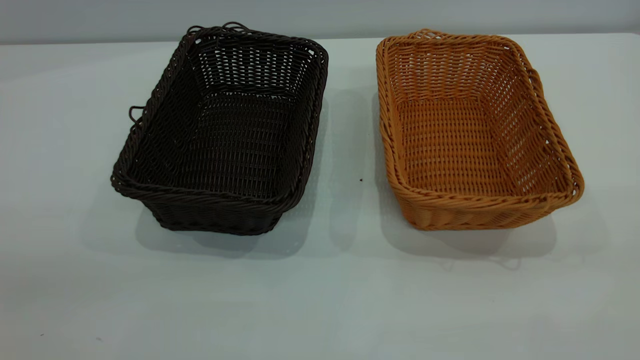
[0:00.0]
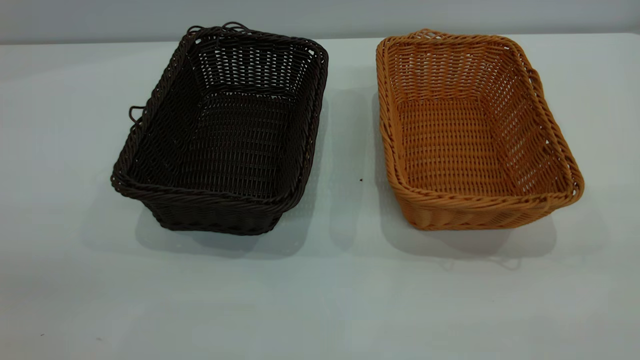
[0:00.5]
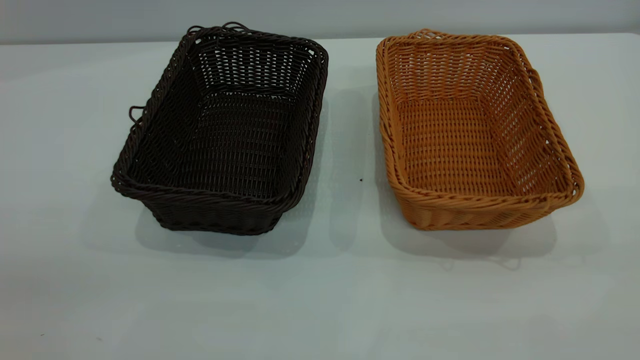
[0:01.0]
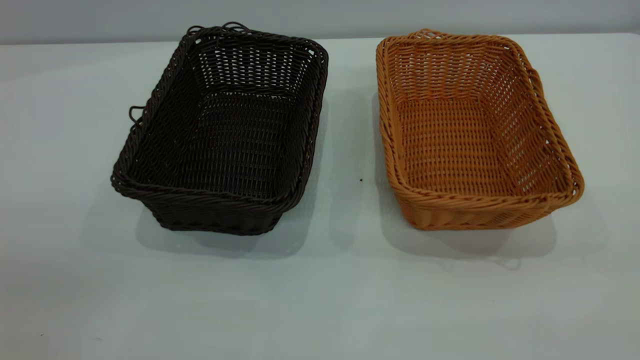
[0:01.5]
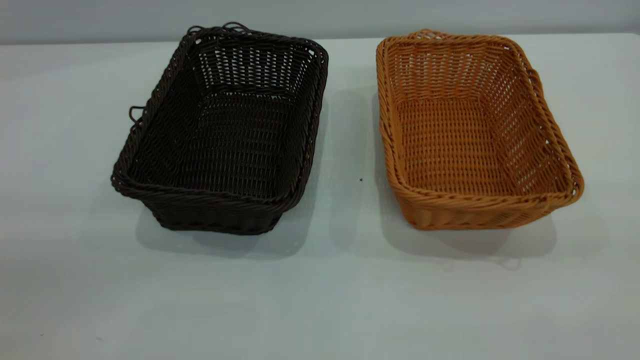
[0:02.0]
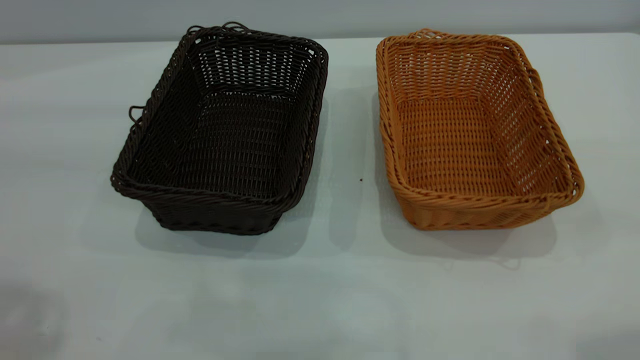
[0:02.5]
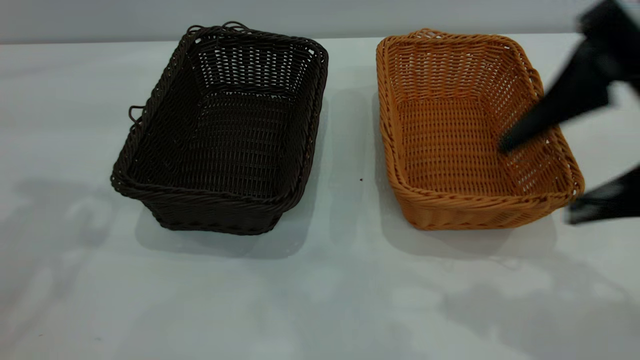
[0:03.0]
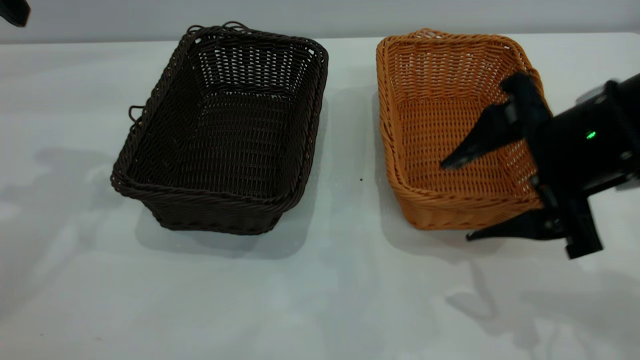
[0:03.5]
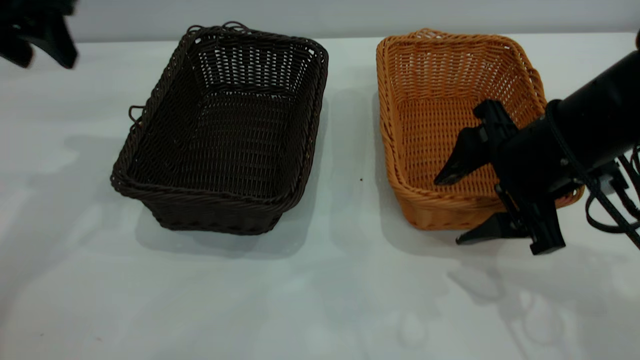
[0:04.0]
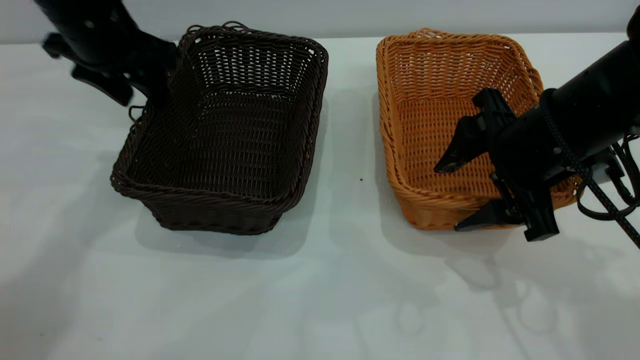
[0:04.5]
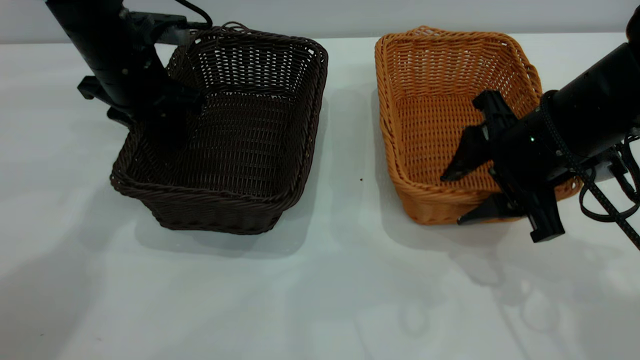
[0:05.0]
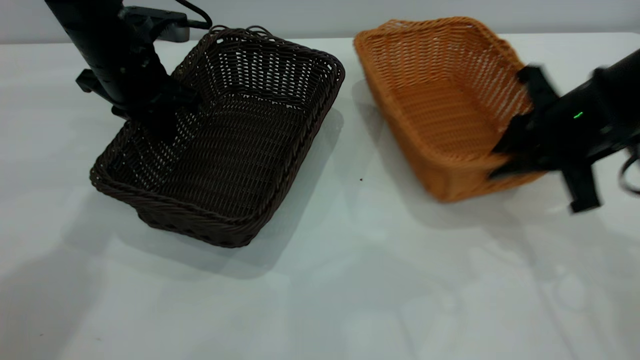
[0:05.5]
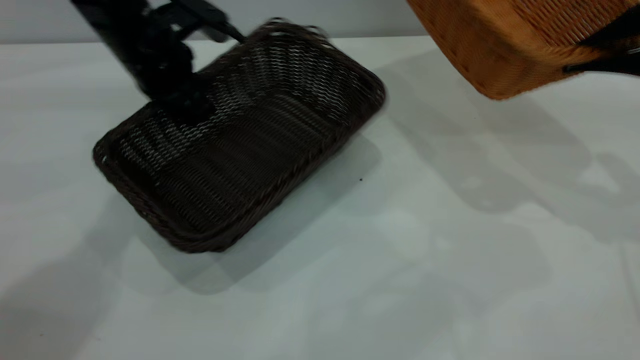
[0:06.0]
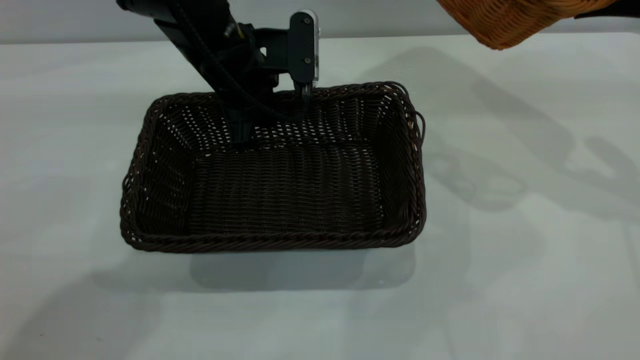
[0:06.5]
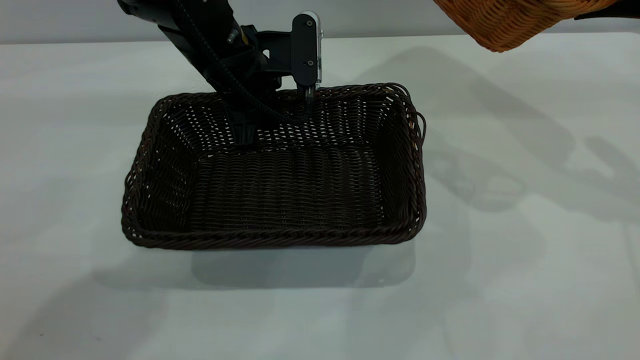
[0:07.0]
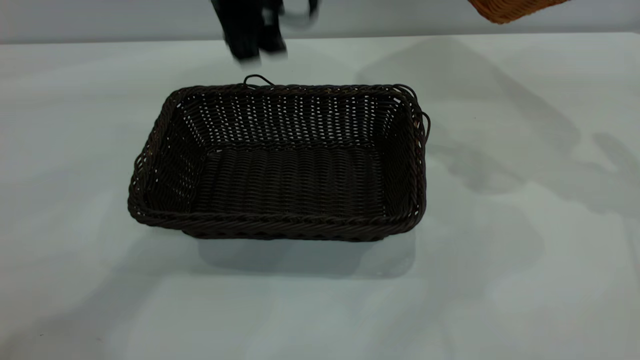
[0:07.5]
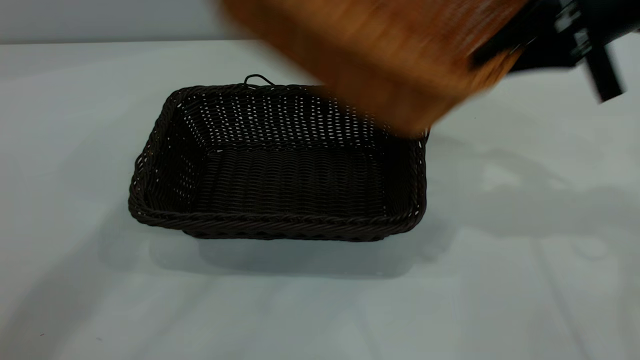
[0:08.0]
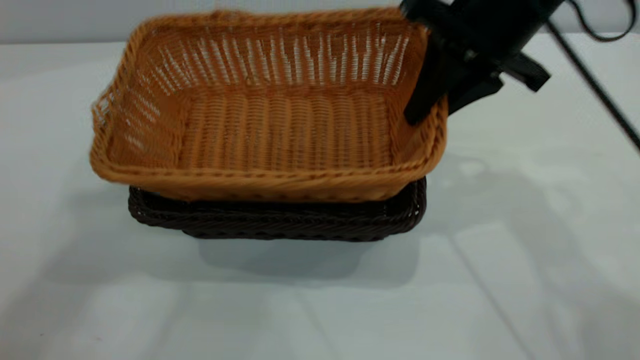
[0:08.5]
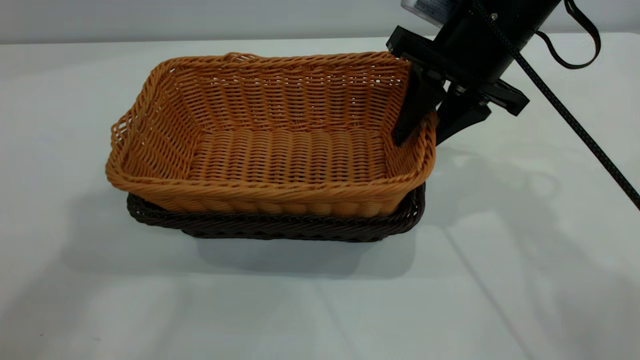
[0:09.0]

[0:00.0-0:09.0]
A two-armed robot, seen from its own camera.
Task of the whole recording: the left gripper grasp the black basket and place it in the center of the table, the right gripper grasp the brown basket and place it inside the black one.
Step, 0:00.0 to 0:05.5: Pick up the light basket with the right gripper.
Step, 0:06.0 to 0:07.0: Move the dark basket to the center of view.
0:02.0 to 0:04.5: The grippers both shift forward and downward by approximately 40 cm. The right gripper opens its fingers.
0:04.5 to 0:07.0: The left gripper goes some 10 cm to the right, and closes its fingers. Meanwhile the right gripper travels to the right and upward by some 20 cm, and closes up.
0:07.0 to 0:09.0: The left gripper shifts some 40 cm upward, and opens; the right gripper is displaced to the left by approximately 20 cm, and opens.

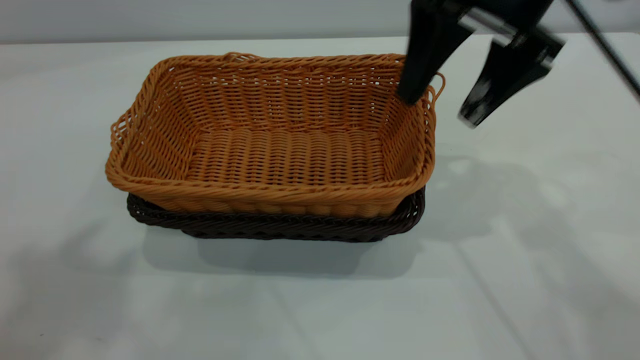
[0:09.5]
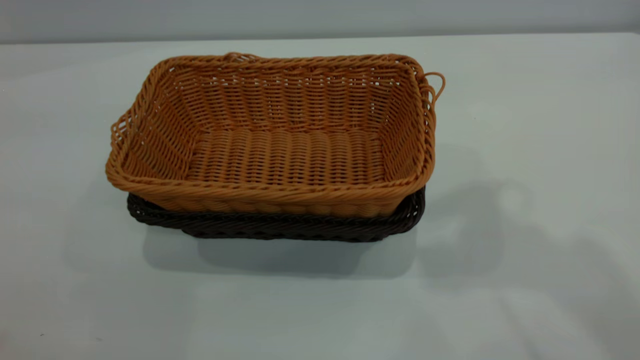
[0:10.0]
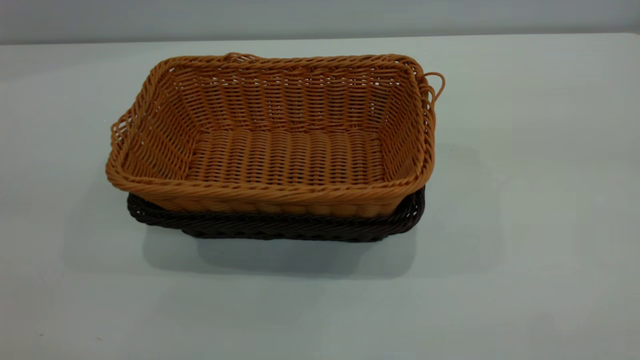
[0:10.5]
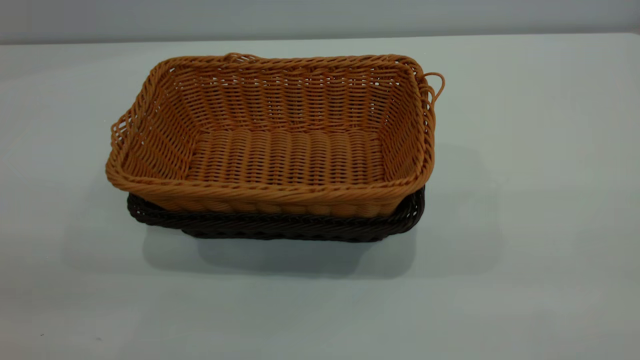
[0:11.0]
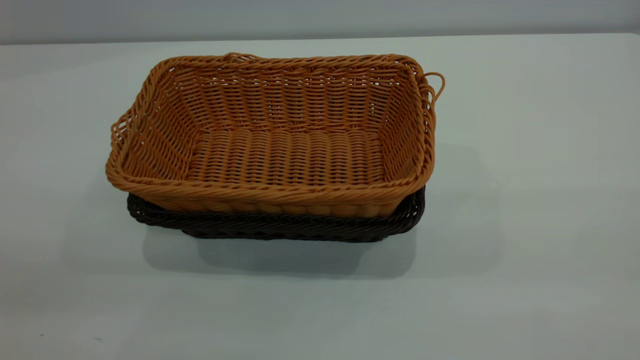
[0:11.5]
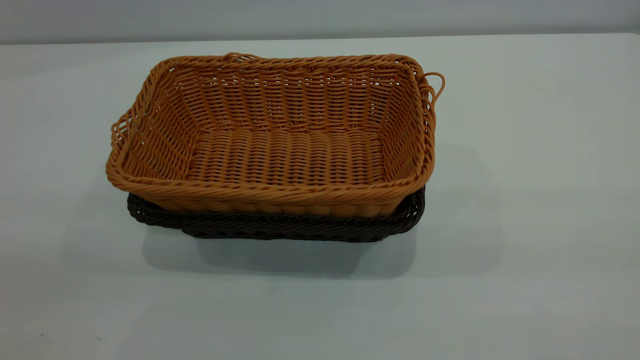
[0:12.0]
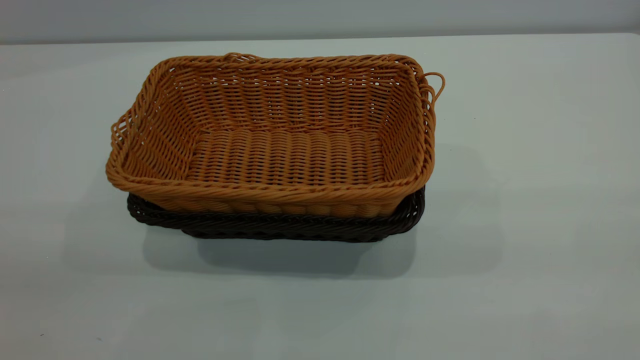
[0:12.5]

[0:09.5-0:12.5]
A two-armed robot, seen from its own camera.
Task of the whole recording: the left gripper grasp the black basket and place it in the center of the table, the right gripper grasp the brown basket and place it inside the black one.
0:09.5 to 0:11.0: The right gripper moves backward and to the right, about 40 cm. The left gripper goes approximately 25 cm downward and backward.
